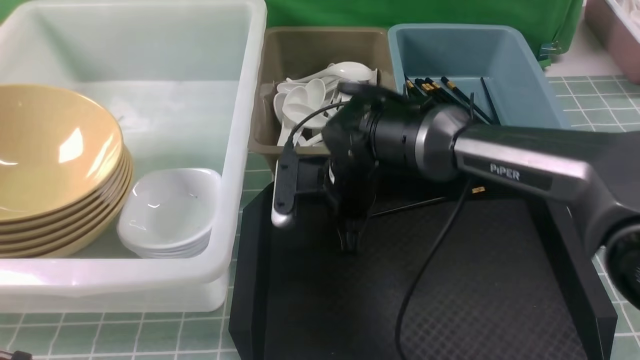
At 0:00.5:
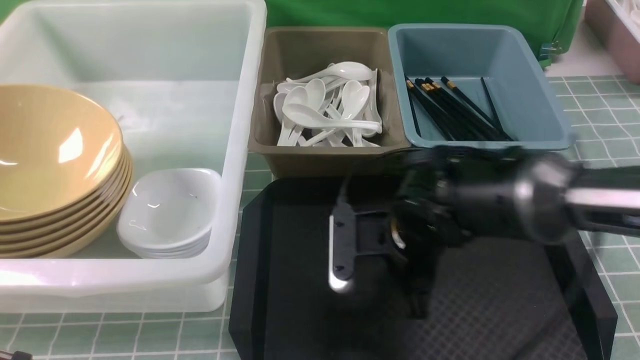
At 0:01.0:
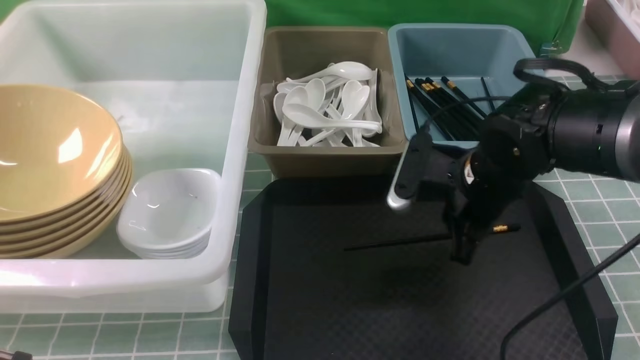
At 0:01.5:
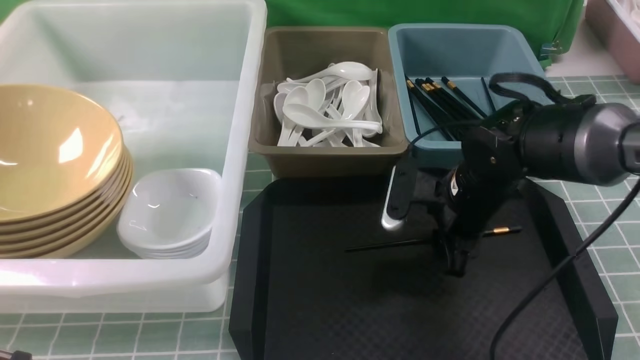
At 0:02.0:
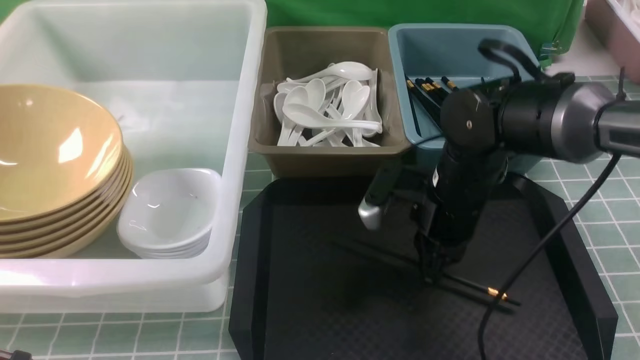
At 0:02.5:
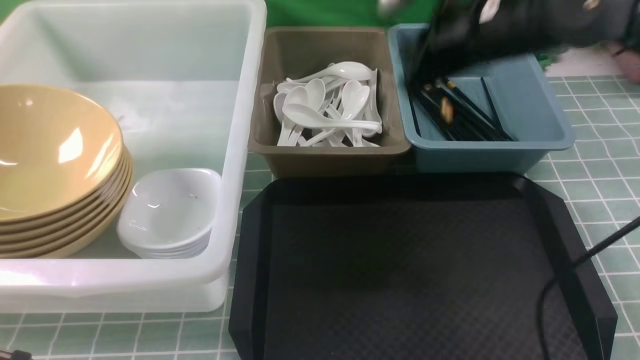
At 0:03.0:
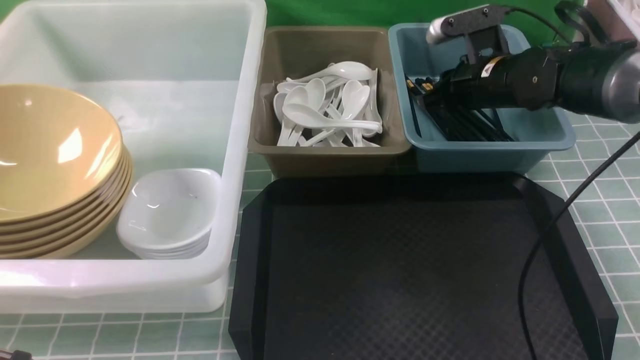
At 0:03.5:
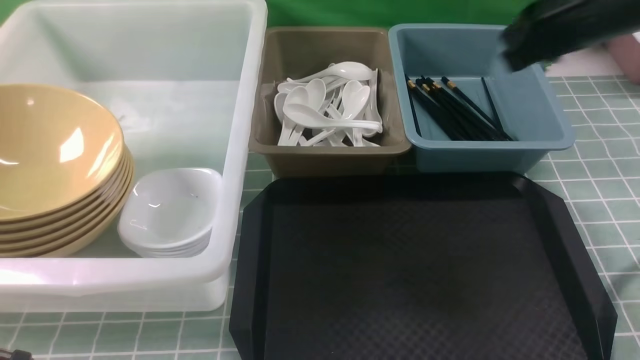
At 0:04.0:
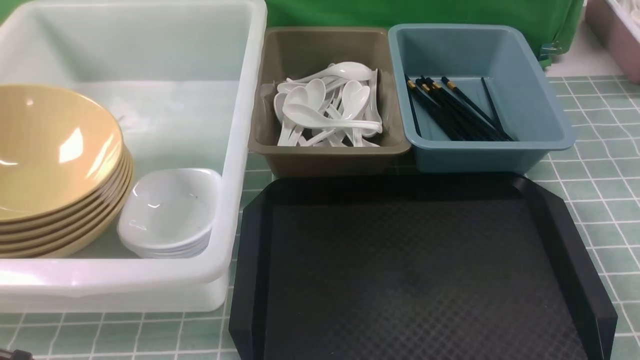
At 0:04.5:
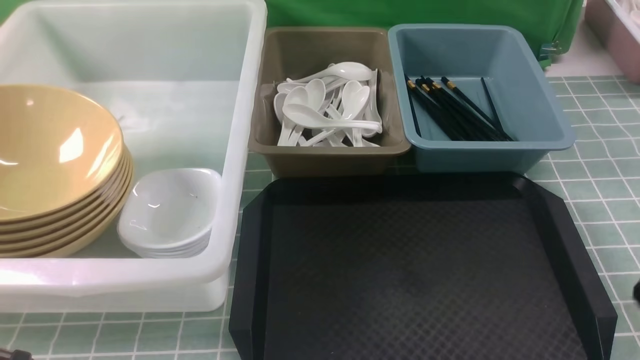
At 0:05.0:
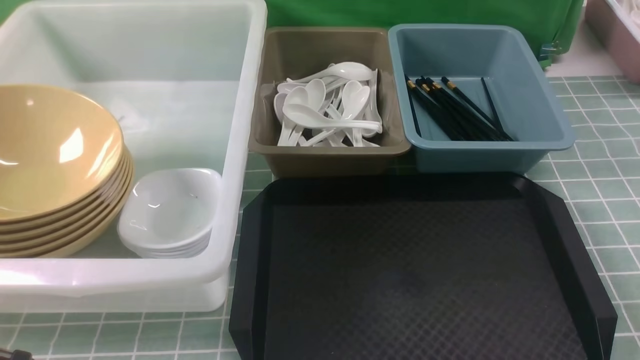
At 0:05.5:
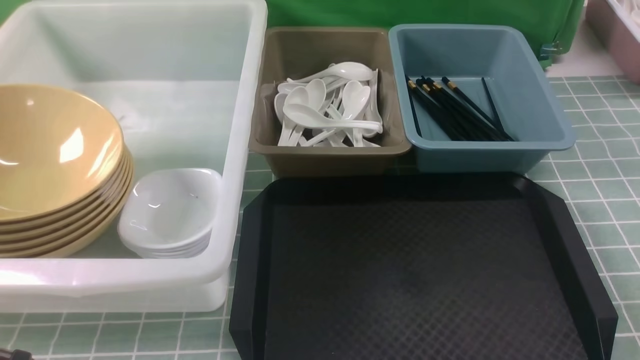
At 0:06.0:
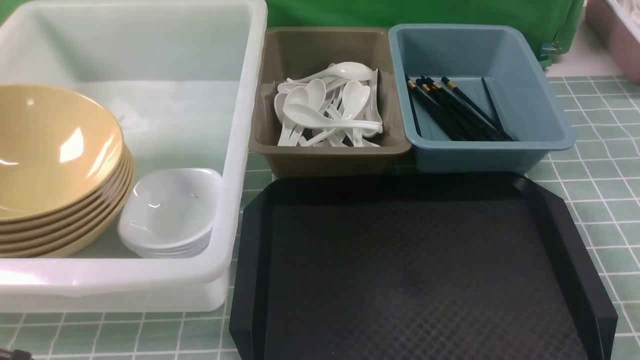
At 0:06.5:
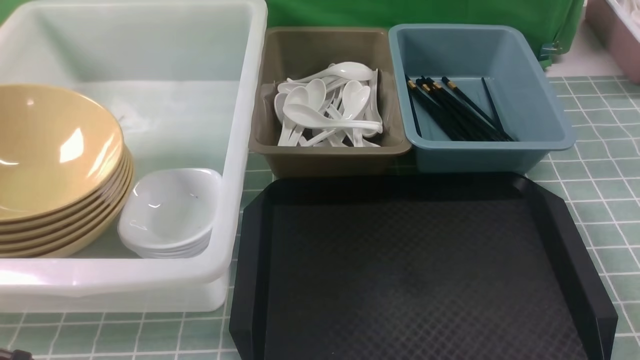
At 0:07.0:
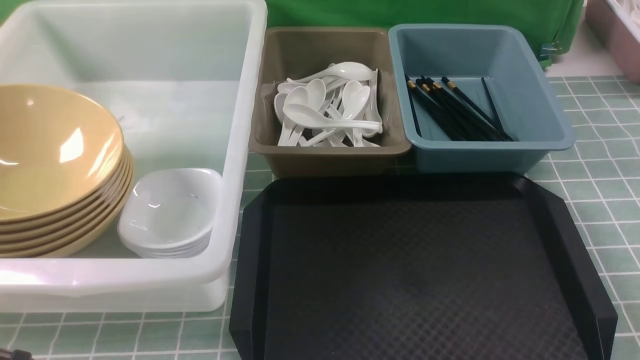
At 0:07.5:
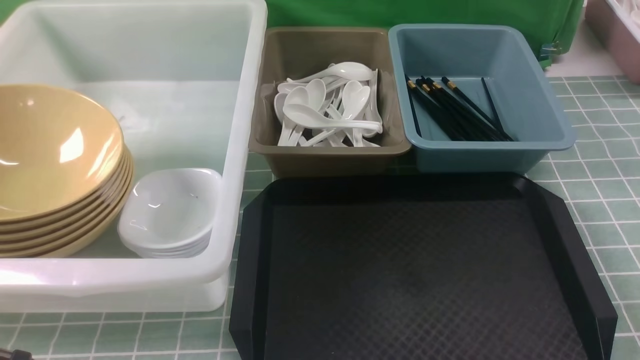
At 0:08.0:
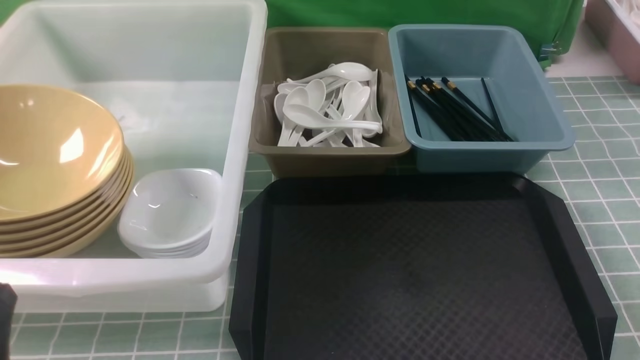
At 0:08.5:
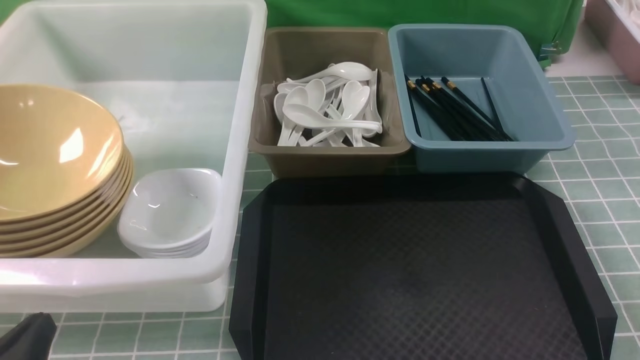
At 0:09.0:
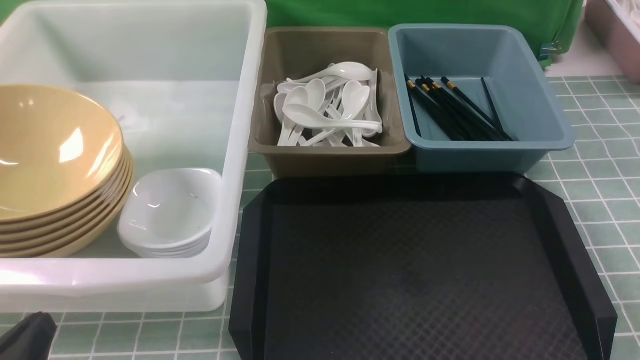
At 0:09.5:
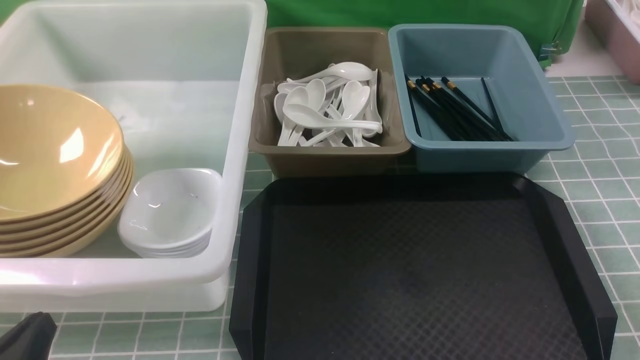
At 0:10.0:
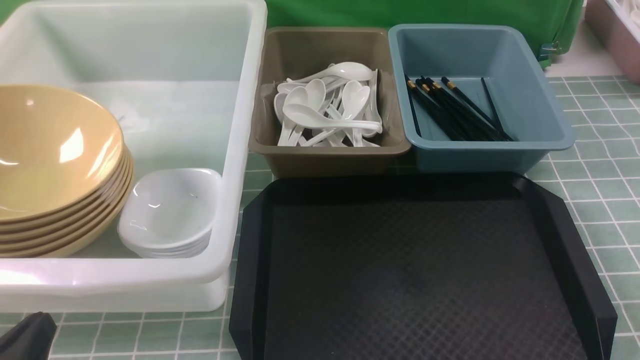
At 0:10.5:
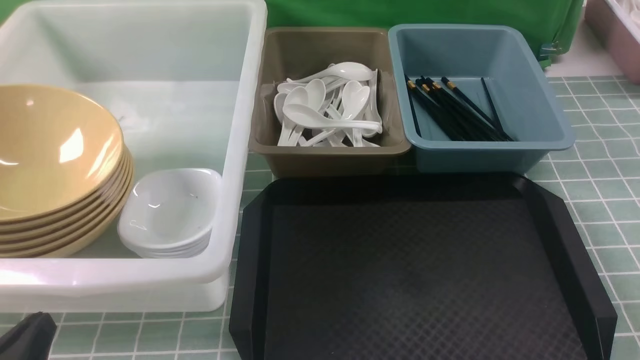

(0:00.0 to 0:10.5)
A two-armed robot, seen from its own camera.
Task of the whole recording: on blue table put chopsticks spoon bowls plates into blue grey white boxes.
Step, 0:00.0 - 0:02.0: use the right arm to grab a chopstick.
Step, 0:02.5 - 0:03.0: use the right arm to put a chopstick into the small storage box on the right.
0:00.0 - 0:02.0: The right gripper goes about 10 cm to the right, and opens and closes again.
0:02.0 - 0:04.0: The right gripper moves backward, upward and to the right, some 30 cm, and opens and closes again.
0:06.5 - 0:08.5: The left gripper shifts roughly 10 cm downward.
0:08.5 - 0:10.5: Both grippers stay put.
